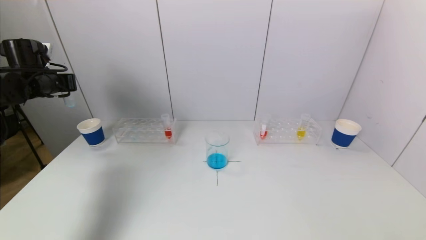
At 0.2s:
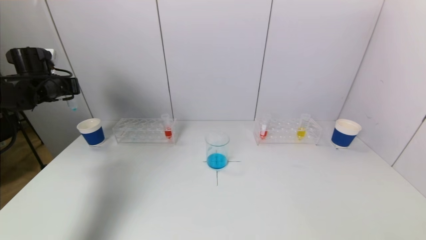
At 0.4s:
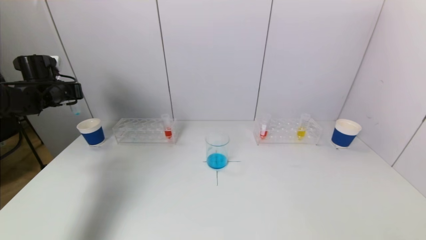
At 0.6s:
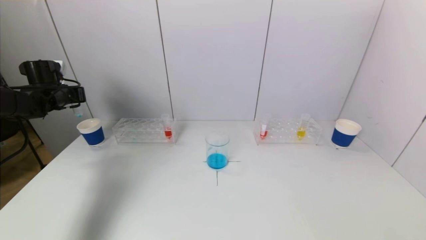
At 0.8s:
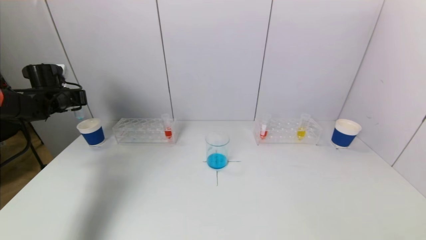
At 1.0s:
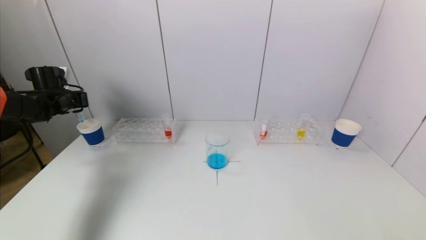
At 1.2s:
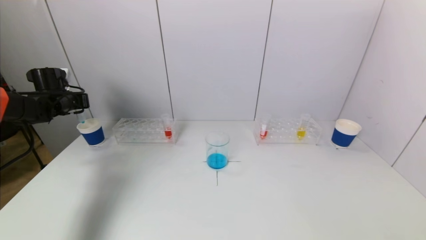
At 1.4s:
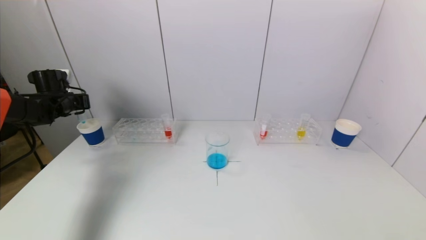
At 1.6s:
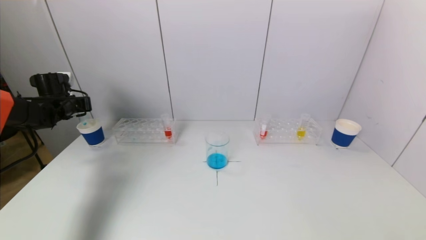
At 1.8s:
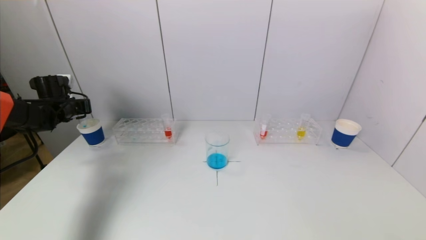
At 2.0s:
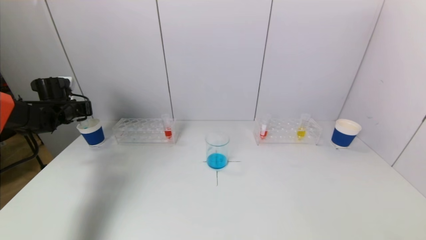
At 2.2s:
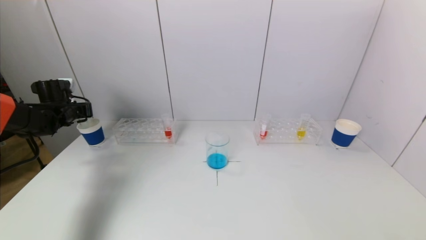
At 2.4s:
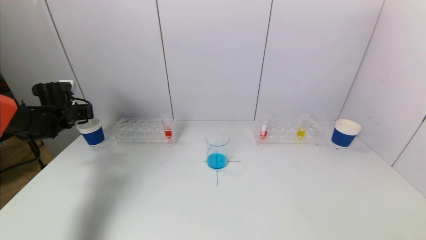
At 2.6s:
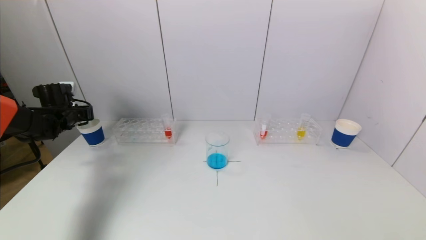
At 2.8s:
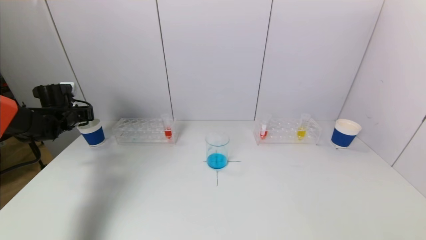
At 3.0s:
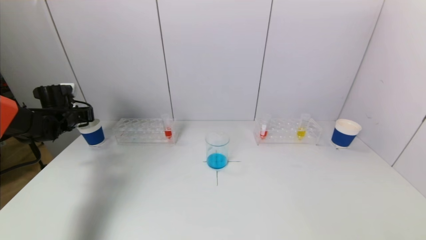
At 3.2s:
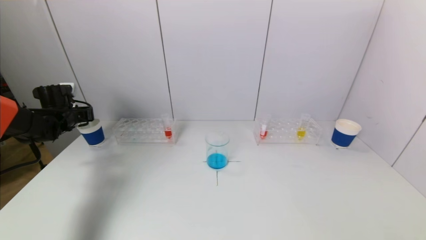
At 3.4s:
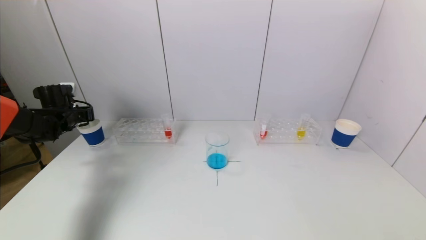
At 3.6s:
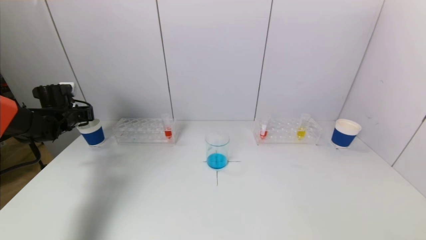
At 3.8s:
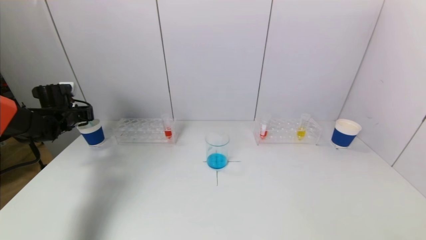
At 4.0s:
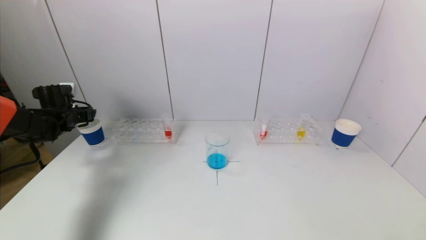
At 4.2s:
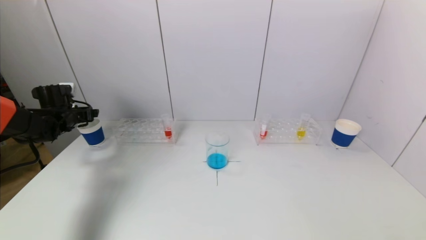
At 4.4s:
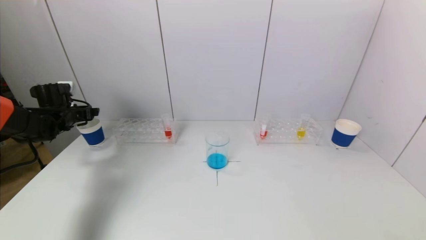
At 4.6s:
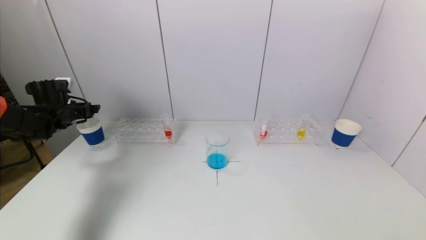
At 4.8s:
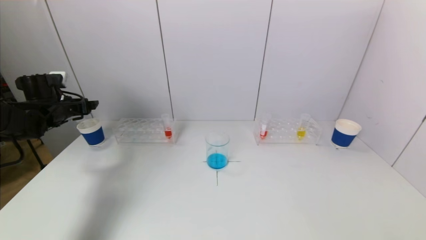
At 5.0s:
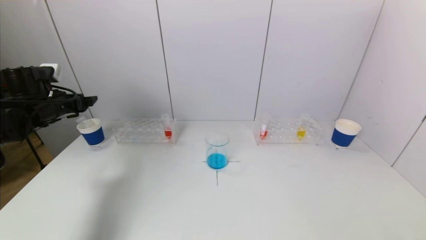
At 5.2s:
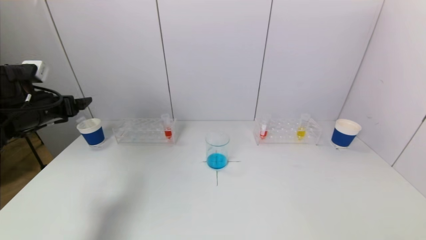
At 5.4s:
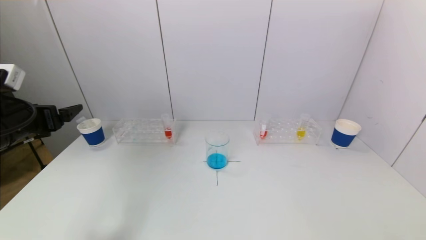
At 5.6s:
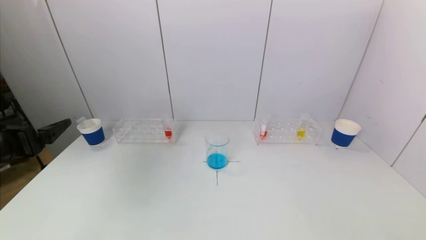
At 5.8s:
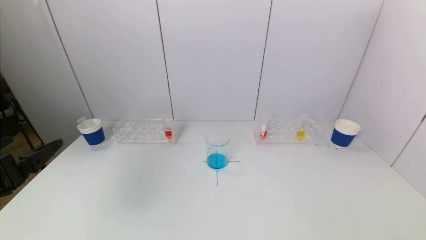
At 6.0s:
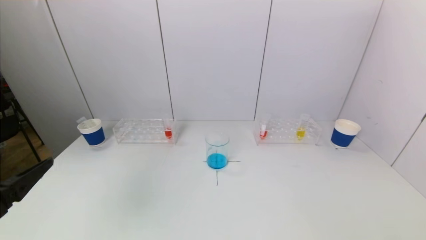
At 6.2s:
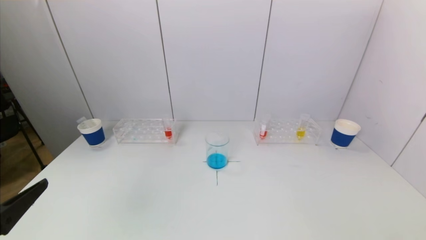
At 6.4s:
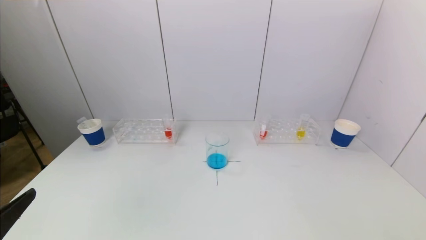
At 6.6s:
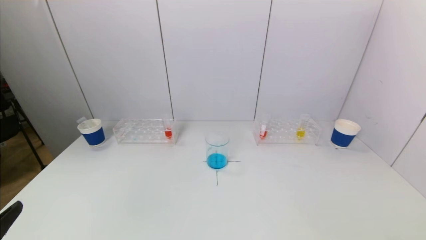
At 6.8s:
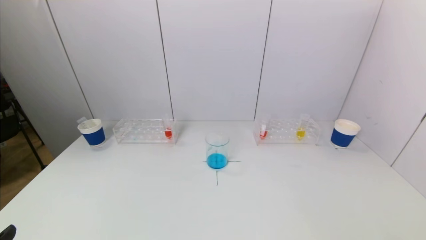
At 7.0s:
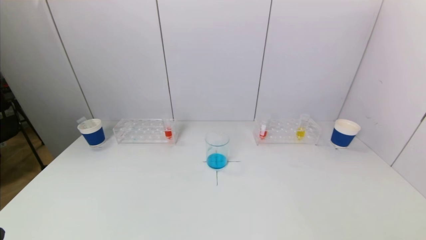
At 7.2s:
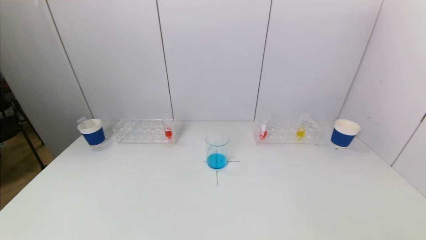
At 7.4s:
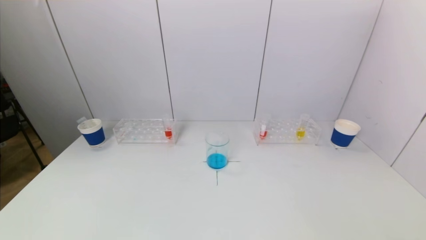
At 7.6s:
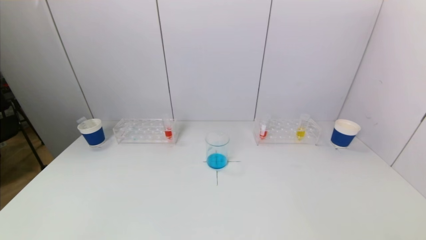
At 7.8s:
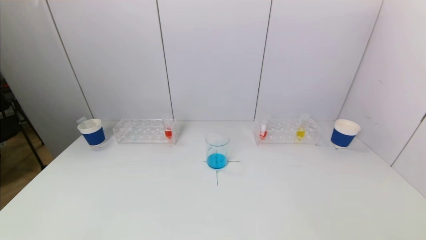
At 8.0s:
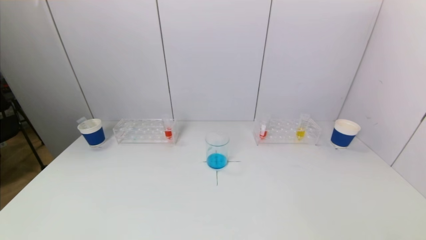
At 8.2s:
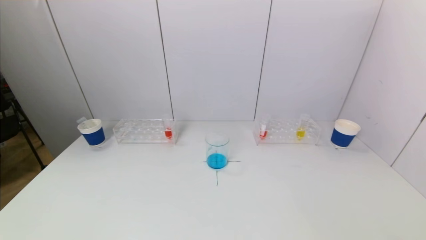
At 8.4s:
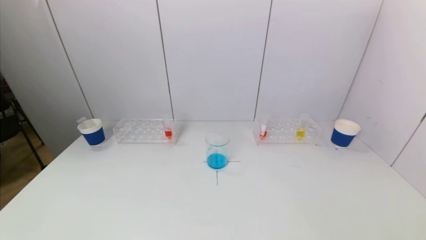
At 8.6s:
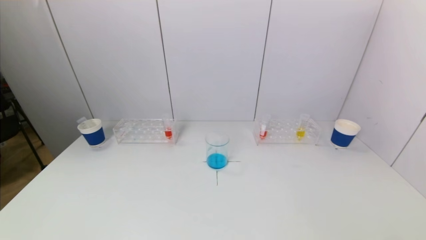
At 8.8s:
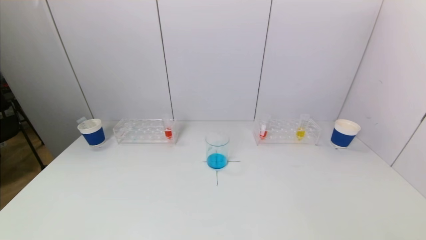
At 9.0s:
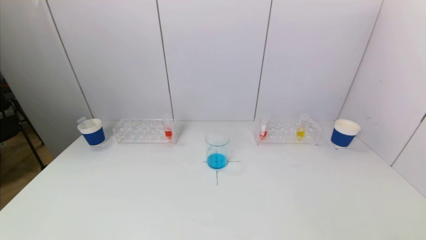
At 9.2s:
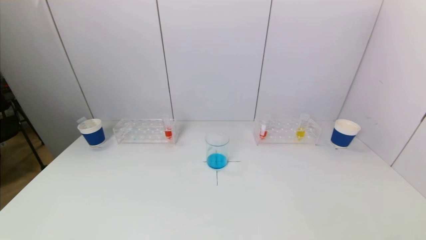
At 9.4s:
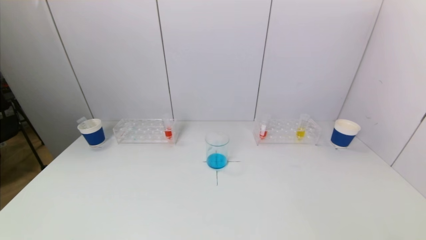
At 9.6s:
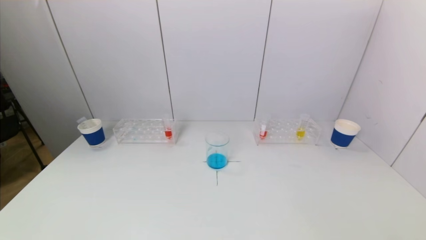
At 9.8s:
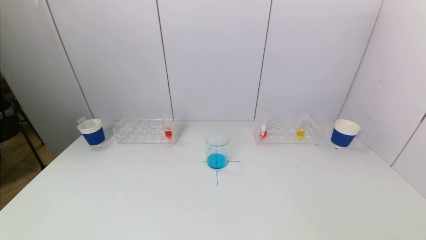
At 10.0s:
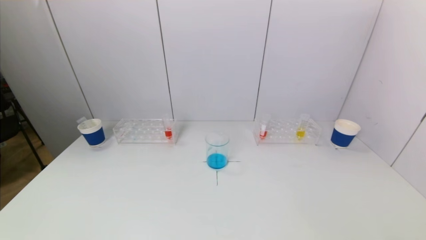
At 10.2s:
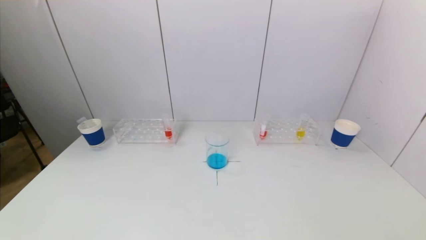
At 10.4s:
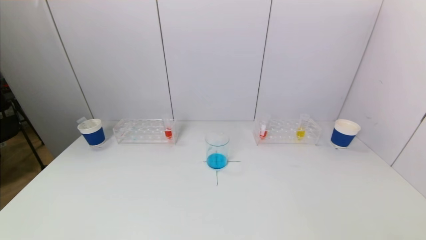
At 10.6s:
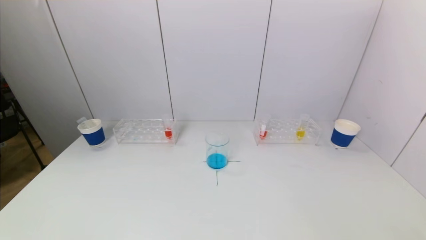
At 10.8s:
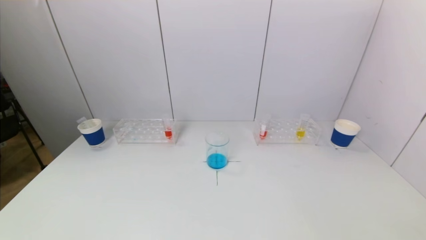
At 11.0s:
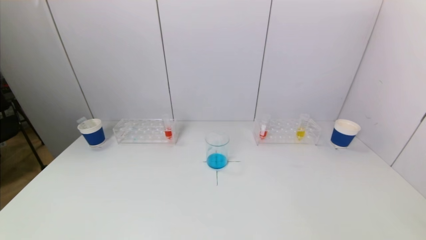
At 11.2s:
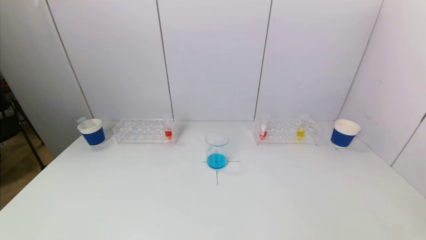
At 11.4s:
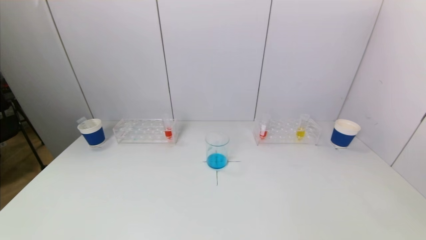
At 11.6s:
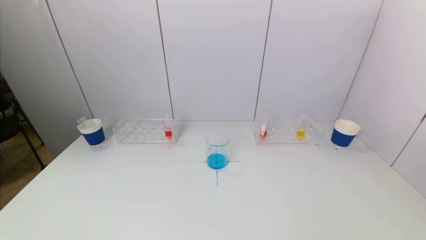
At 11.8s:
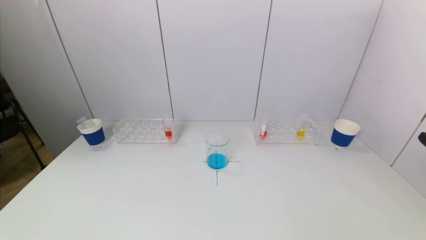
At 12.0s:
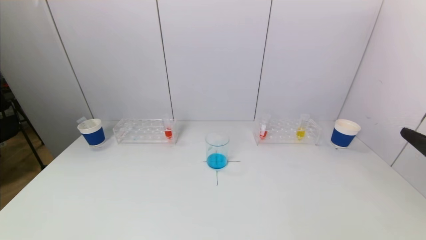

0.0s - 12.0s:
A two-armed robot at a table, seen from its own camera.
Task of the whole recording: pick up a test tube with pigment on left test tube rack and a test tube with pigment on right test tube rack by grippers and pour them into the beaker.
Step, 0.0s - 4.0s: Place the test tube into the paper cup with the left gripper.
0.0s - 1.6s: The left gripper goes some 10 cm downward.
1.6s - 3.0s: The grippers make only small movements.
3.0s - 4.4s: The left gripper opens.
4.4s - 6.0s: The left gripper goes some 35 cm backward.
6.0s - 7.6s: The left gripper is displaced backward by about 10 cm.
9.0s - 10.4s: Both grippers stay about where they are.
10.4s - 12.0s: The right gripper goes some 20 cm upward and forward.

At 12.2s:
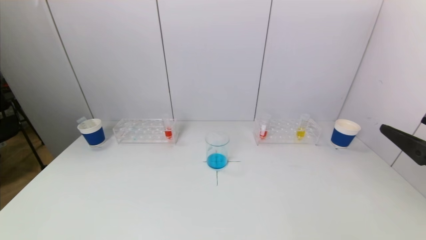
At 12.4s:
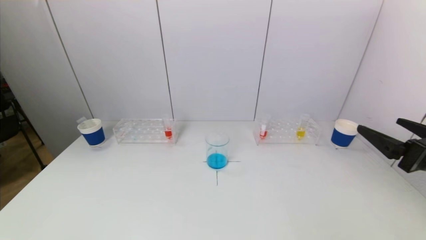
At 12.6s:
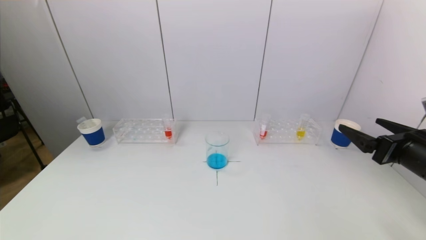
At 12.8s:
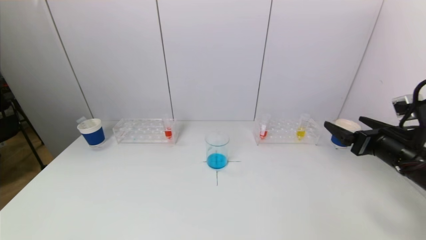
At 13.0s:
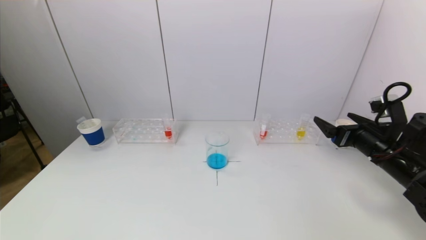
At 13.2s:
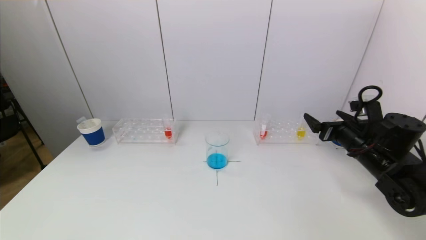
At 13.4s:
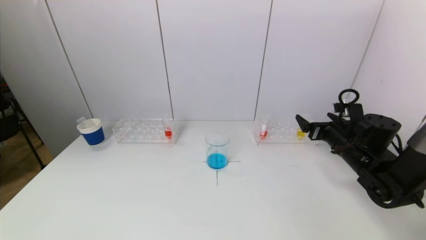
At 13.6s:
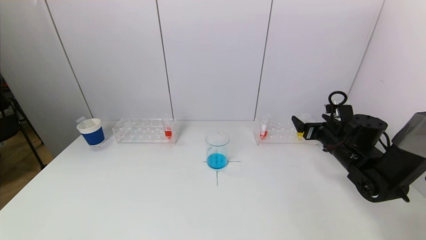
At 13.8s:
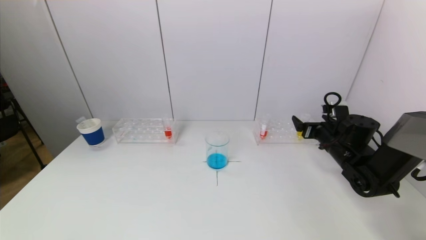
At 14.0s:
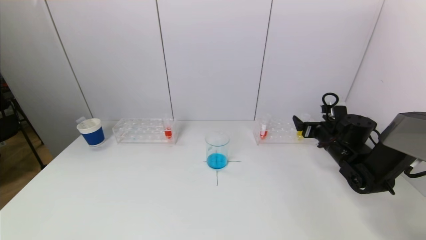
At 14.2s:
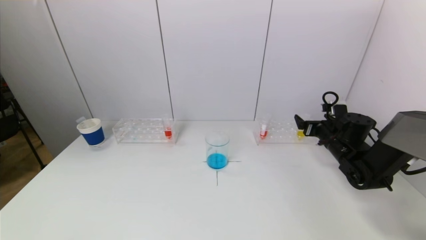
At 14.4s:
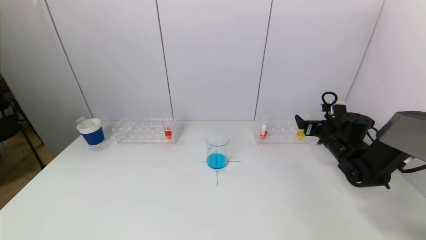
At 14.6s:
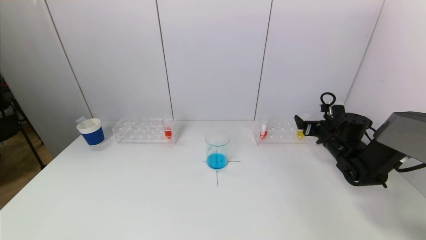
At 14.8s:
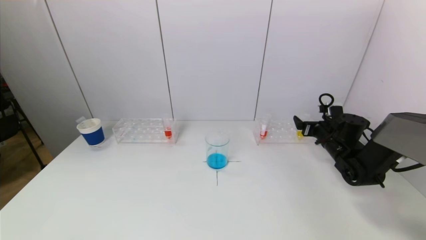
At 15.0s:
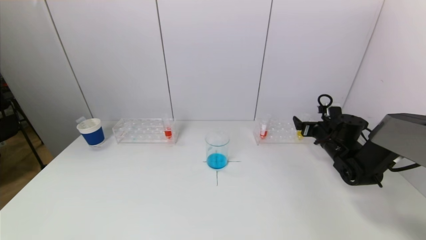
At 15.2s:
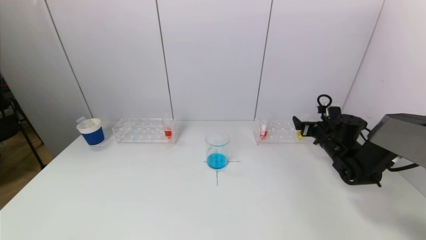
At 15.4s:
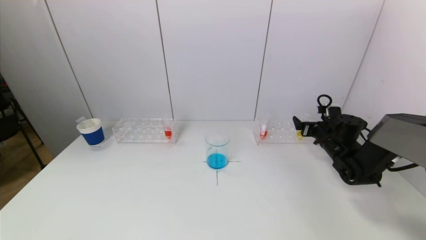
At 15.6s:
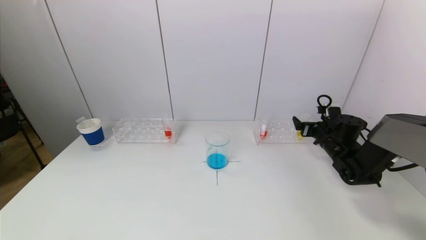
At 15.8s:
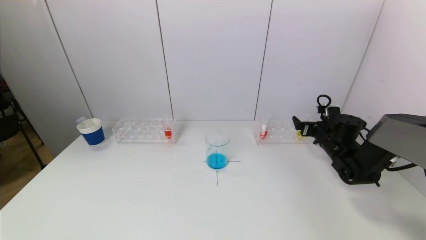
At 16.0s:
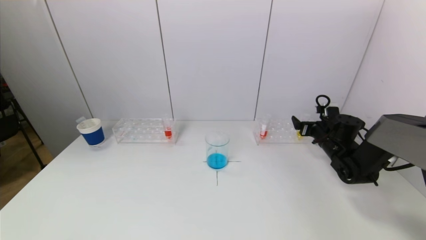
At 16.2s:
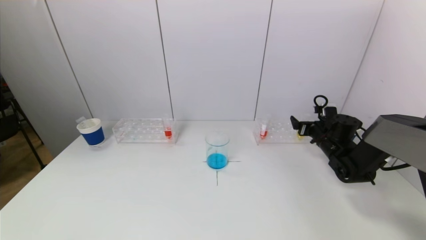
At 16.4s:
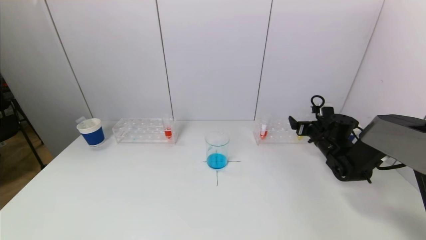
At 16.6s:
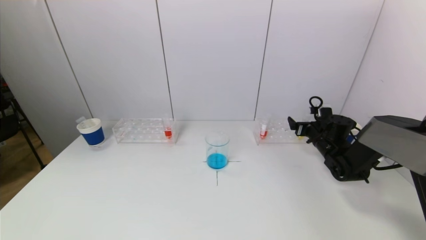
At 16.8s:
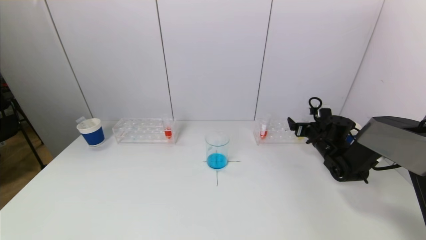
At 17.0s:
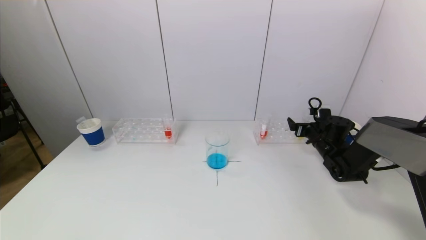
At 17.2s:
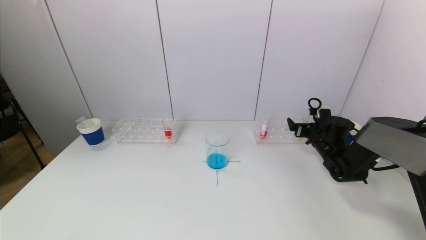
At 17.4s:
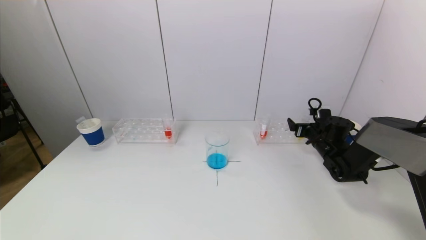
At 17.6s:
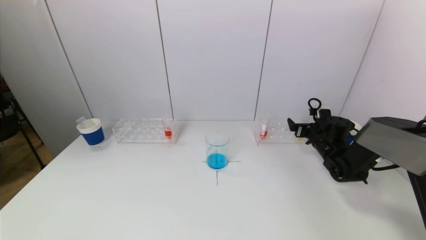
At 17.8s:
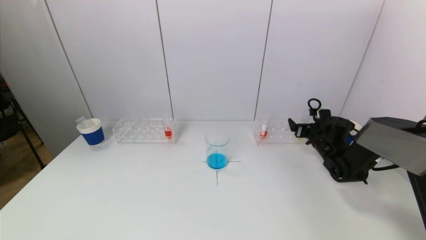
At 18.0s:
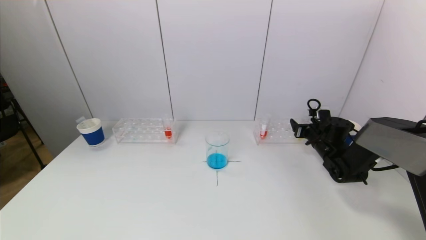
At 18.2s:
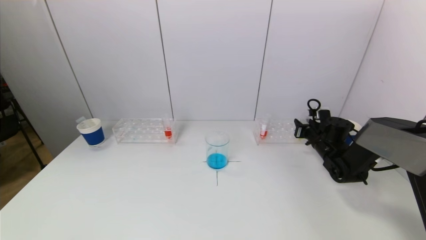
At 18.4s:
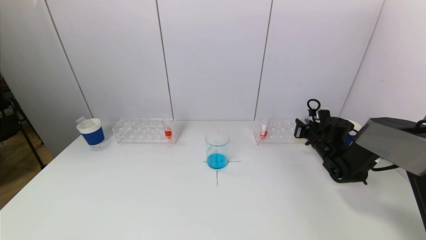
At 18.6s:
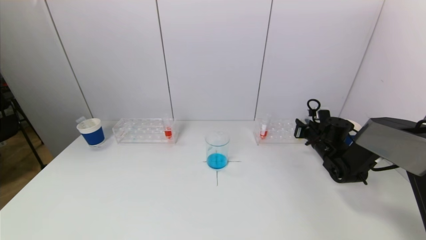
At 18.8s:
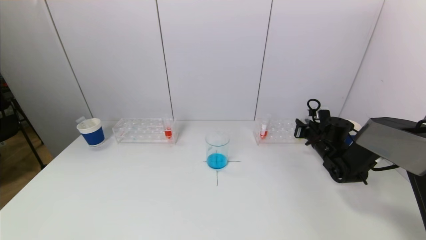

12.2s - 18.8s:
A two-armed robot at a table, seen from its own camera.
Task of the whole recording: pick up a test tube with pigment on left test tube rack and a test tube with pigment on right test tube rack by grippers and pour them into the beaker.
Step, 12.2s - 18.4s: Grasp the yellow reagent with the right gripper.
12.2s - 13.8s: The right gripper travels forward and downward by roughly 30 cm.
13.8s - 15.4s: The right gripper changes place by about 5 cm.
15.4s - 17.2s: The grippers stay close to where they were, moving slightly.
17.2s - 18.8s: The right gripper closes up.
